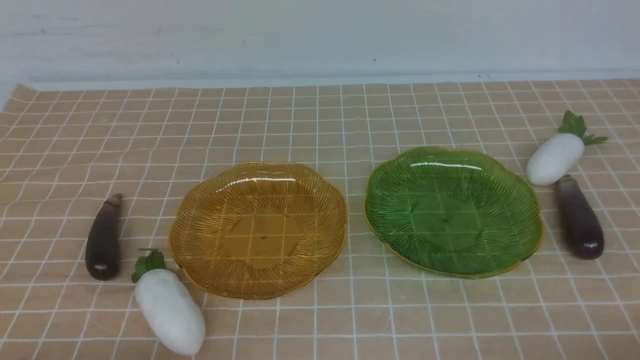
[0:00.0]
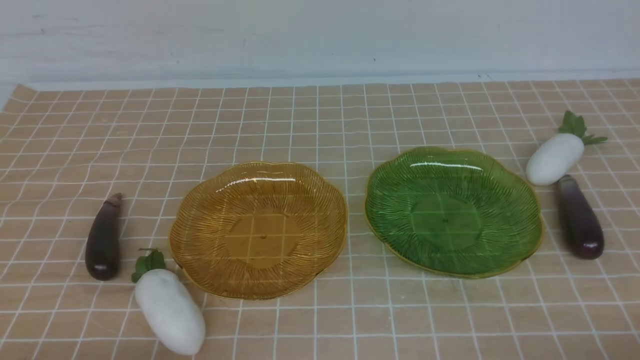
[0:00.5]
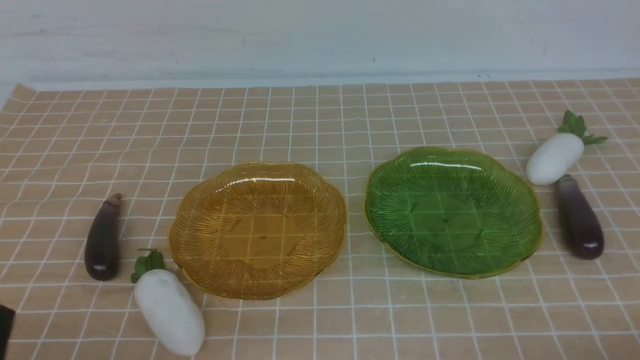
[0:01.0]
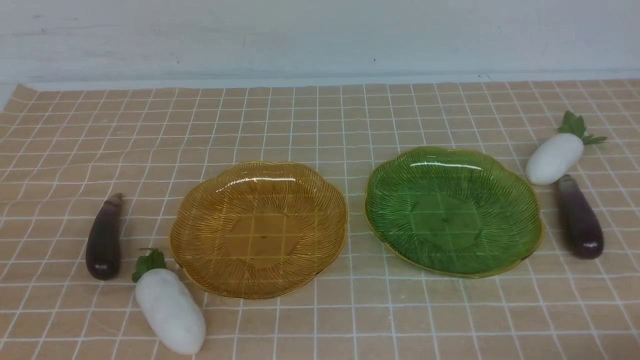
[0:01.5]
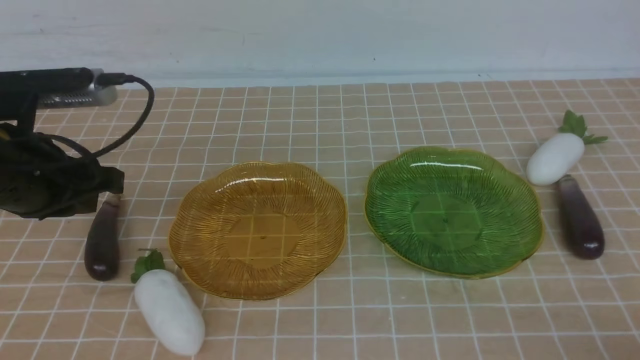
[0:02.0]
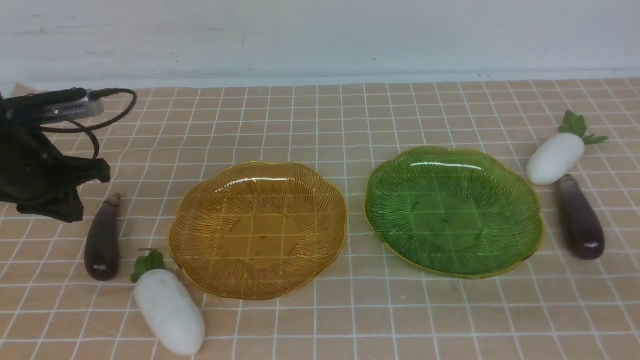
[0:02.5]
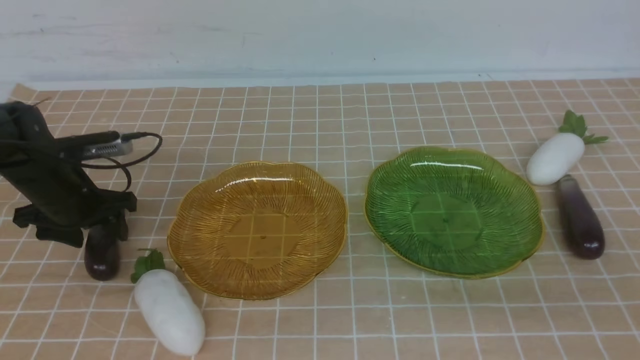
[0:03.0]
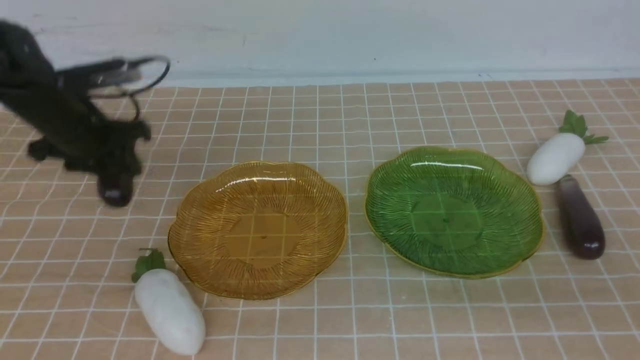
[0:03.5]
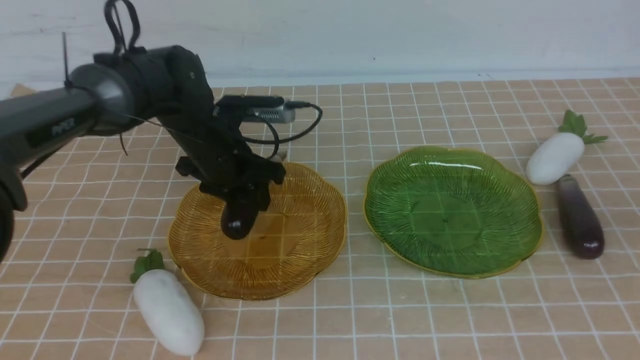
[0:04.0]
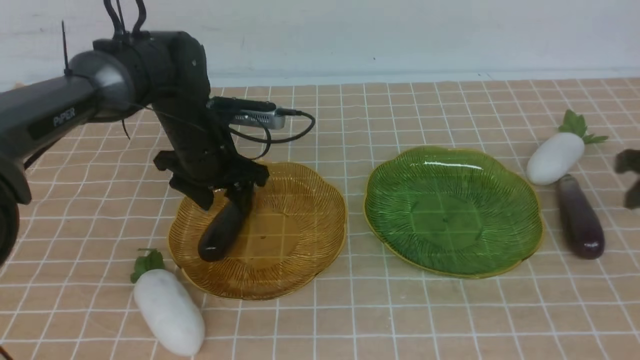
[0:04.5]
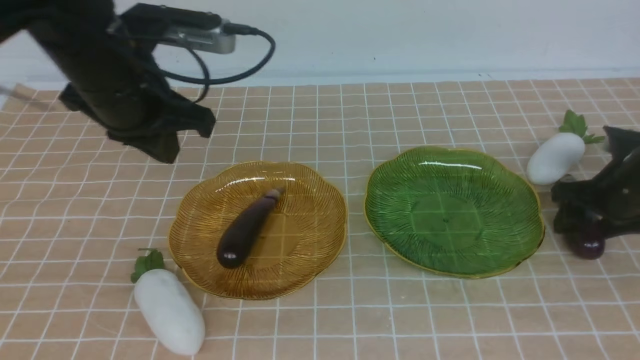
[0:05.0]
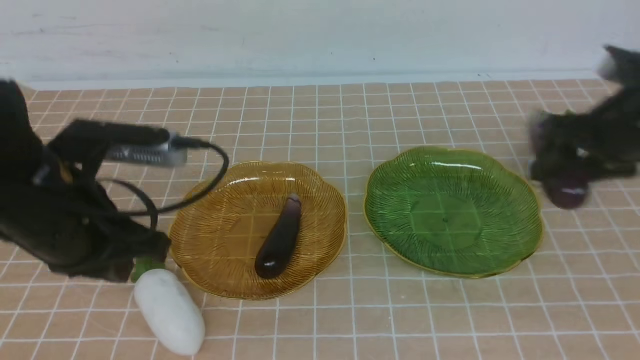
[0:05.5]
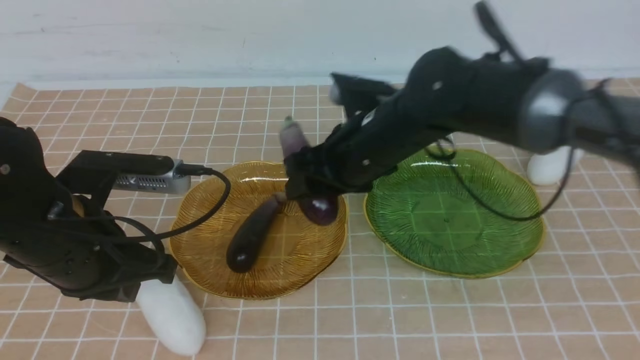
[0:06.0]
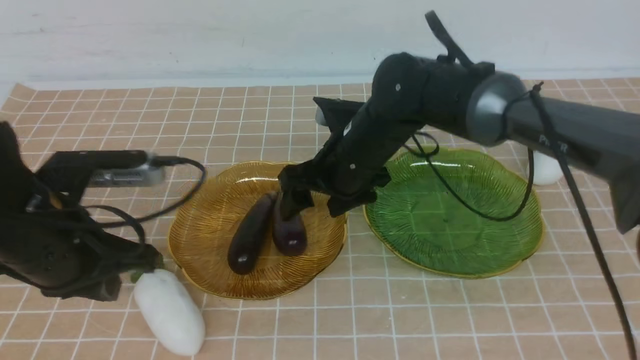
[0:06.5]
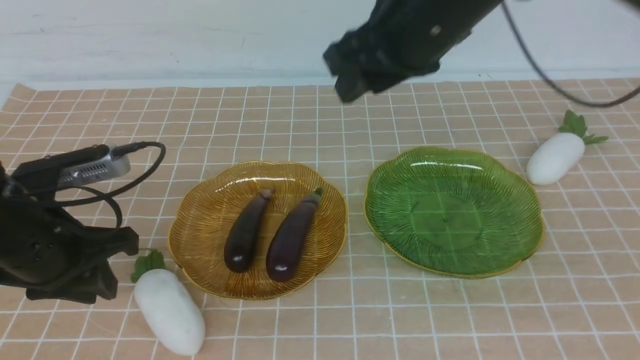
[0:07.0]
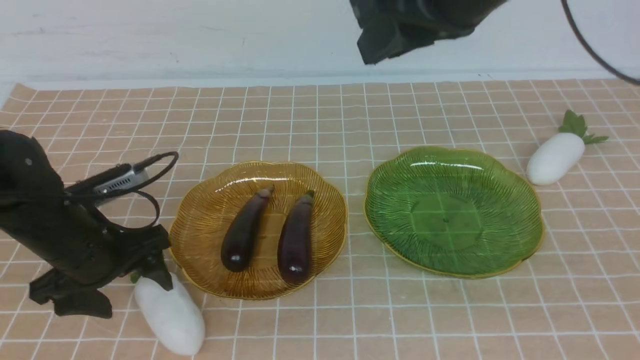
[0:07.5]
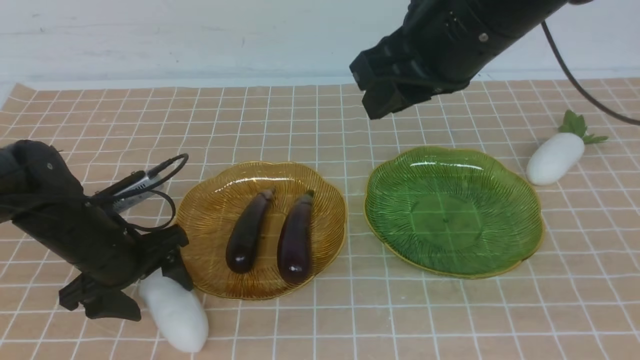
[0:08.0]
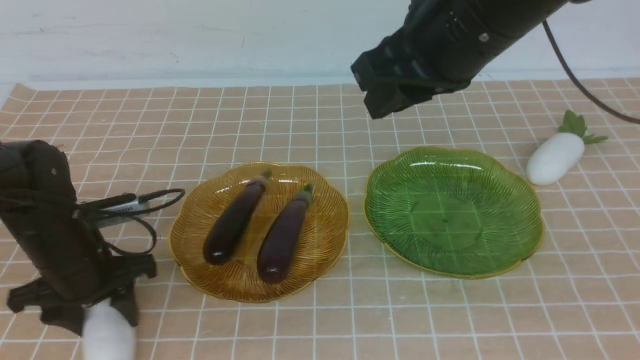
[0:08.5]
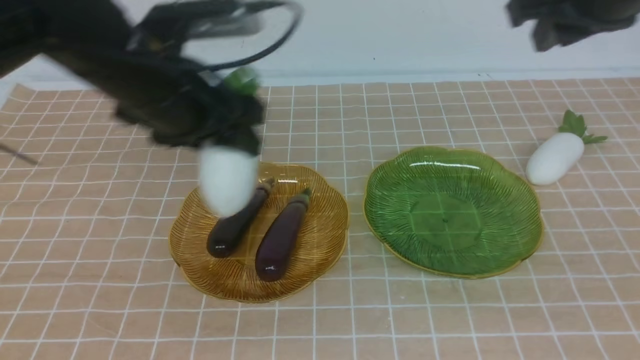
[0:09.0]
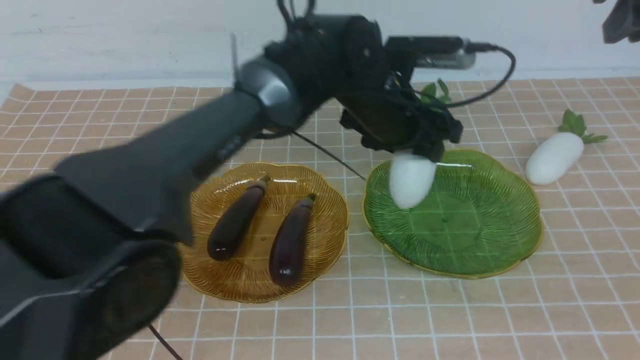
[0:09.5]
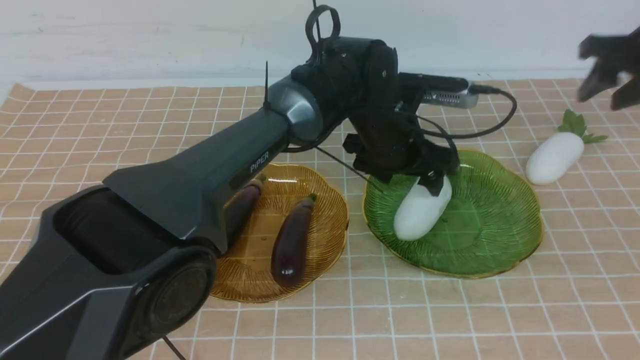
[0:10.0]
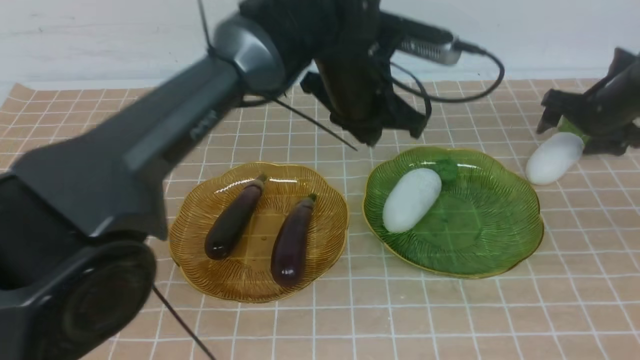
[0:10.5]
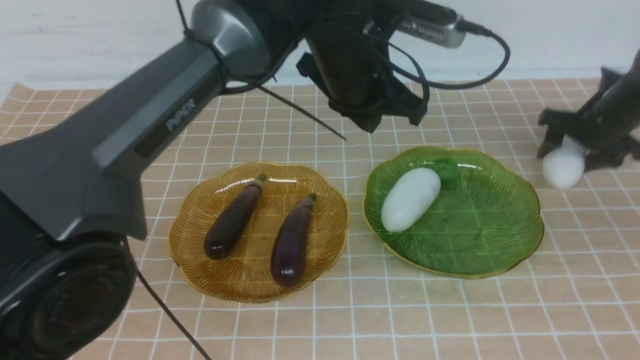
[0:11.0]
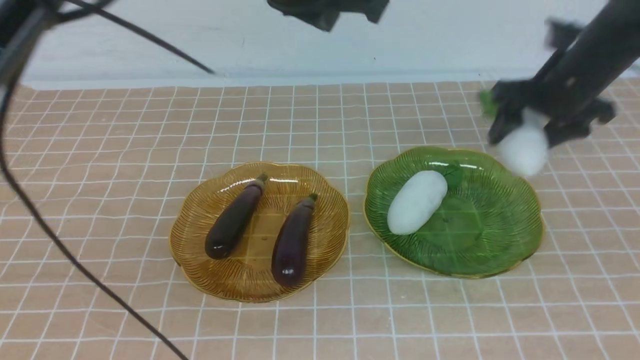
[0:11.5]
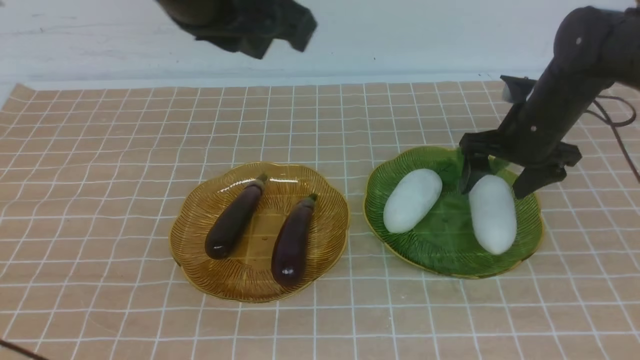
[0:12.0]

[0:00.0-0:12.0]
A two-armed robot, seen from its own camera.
Step, 0:00.0 to 0:04.0: use the left arm to grab an eggplant and put it into the left plate.
Step, 0:04.5 to 0:06.0: use the right arm to grab an eggplant and put it into the left plate.
Step, 0:07.0 to 0:09.5: use the left arm to grab a radish and put it into the right plate.
0:00.0 to 0:02.0: The left gripper heads forward, covering approximately 30 cm.
0:02.0 to 0:04.0: The right gripper goes roughly 30 cm forward, and opens up. The left gripper moves to the right, roughly 15 cm, and opens and closes again.
0:04.0 to 0:06.0: The right gripper travels to the left by roughly 30 cm; the left gripper shifts roughly 15 cm backward and to the left.
0:06.0 to 0:08.0: The left gripper is displaced forward and to the right by about 10 cm, travels downward and back again, roughly 10 cm each way, and opens up; the right gripper heads to the right and upward, covering about 20 cm, and closes up.
0:08.0 to 0:10.0: The right gripper travels downward, to the right and forward by some 35 cm, and opens its fingers, while the left gripper moves to the right, some 20 cm, and closes its fingers.
0:10.0 to 0:12.0: The left gripper shifts approximately 25 cm backward, upward and to the left; the right gripper swings up and down, roughly 20 cm each way, with 2 reversals, and closes.

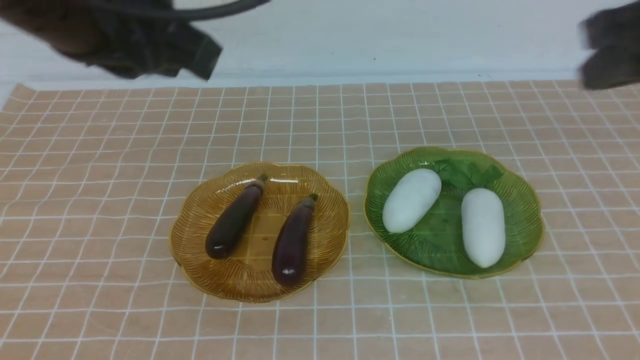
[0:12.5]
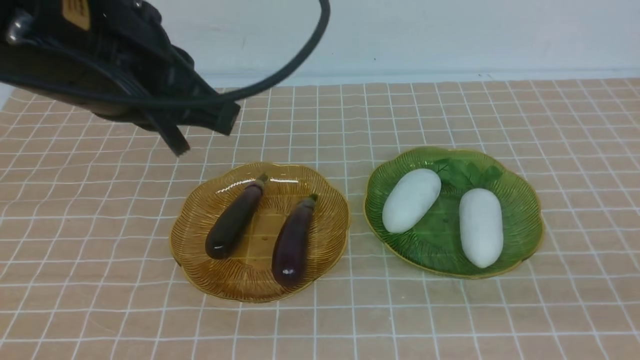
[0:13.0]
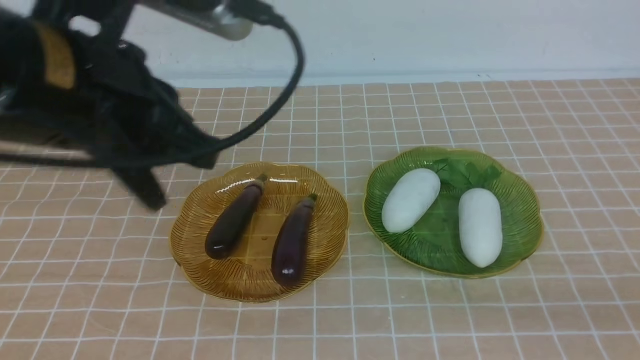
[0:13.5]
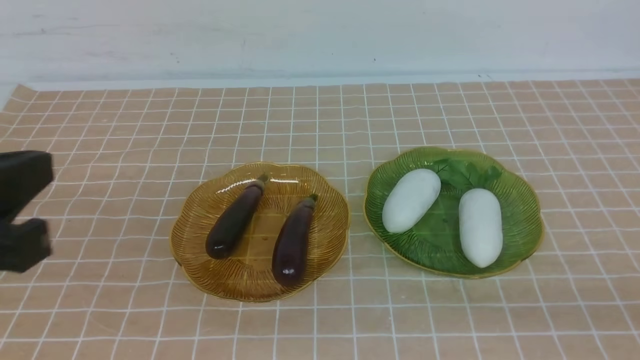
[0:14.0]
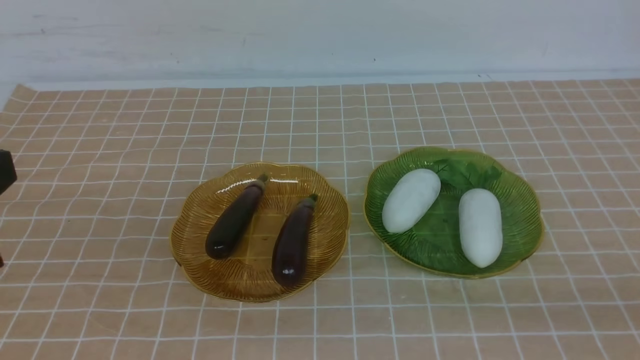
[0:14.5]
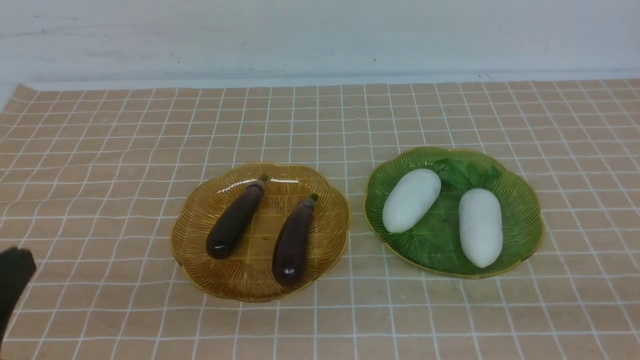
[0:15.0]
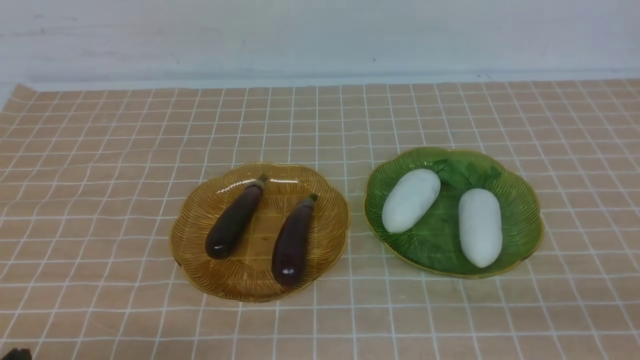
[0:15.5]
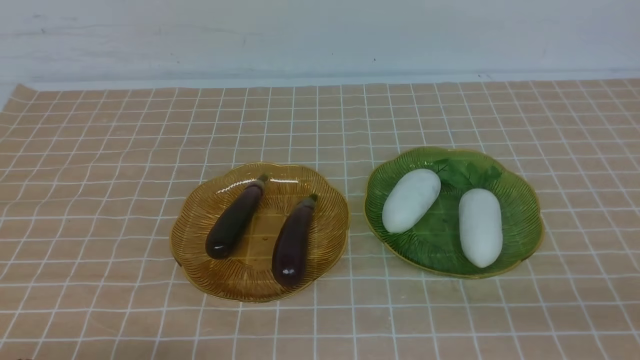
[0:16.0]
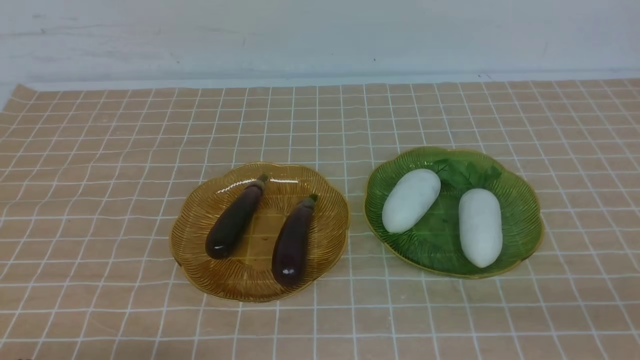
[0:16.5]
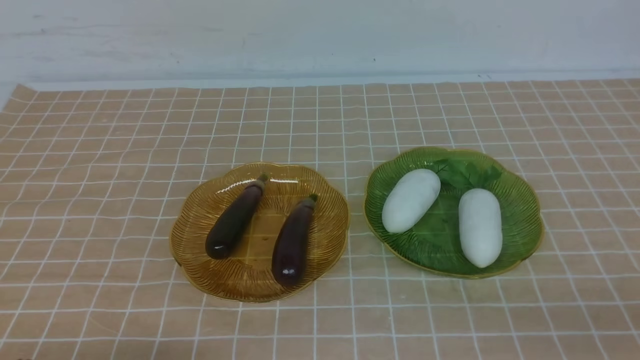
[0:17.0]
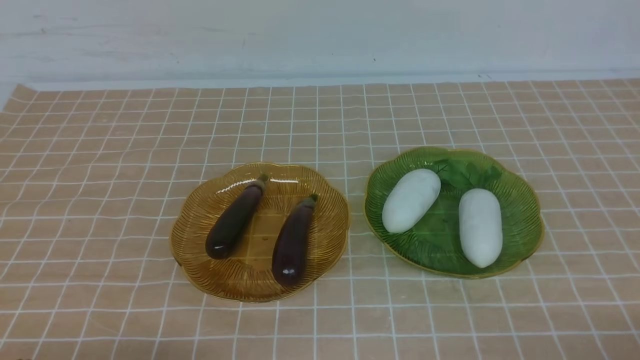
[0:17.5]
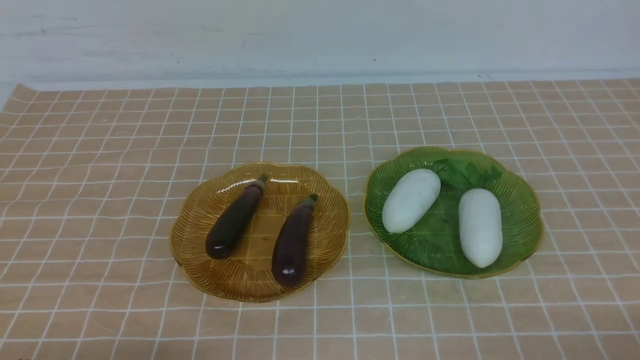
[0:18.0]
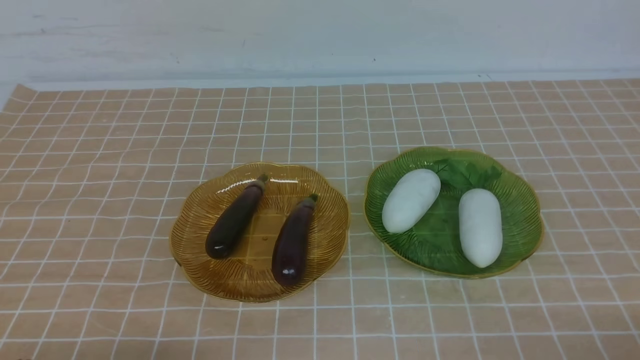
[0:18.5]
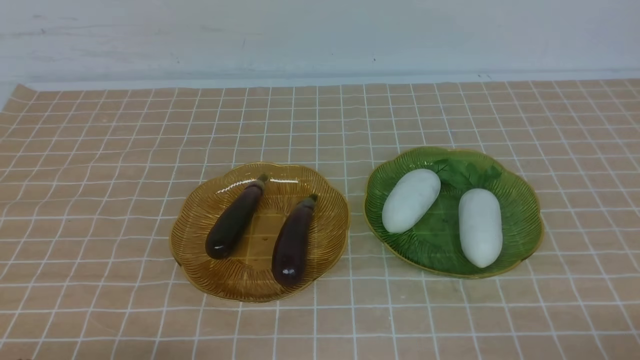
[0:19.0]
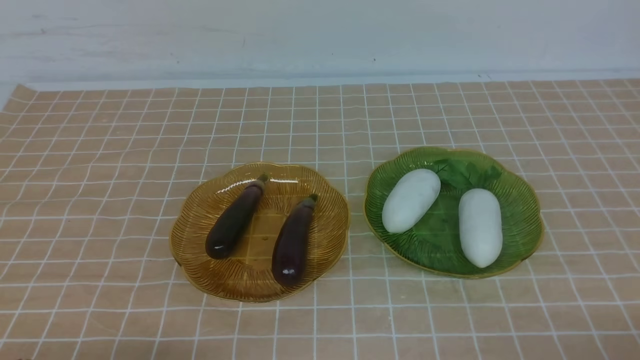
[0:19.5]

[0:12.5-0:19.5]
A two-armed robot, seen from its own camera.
0:12.5 to 0:14.5: The left gripper moves backward, to the left and downward, approximately 15 cm, while the right gripper travels downward and backward by approximately 15 cm.
0:17.5 to 0:19.5: Both grippers stay about where they are.
